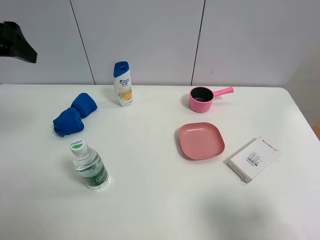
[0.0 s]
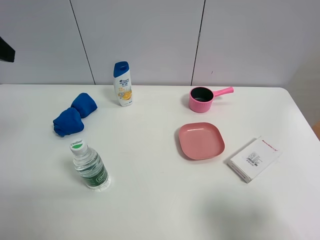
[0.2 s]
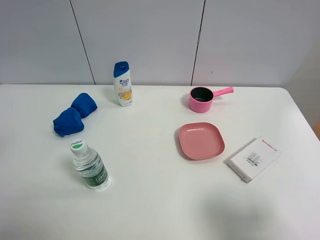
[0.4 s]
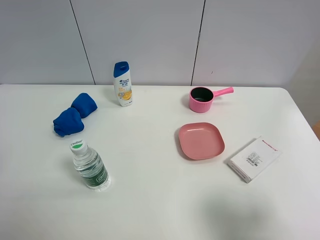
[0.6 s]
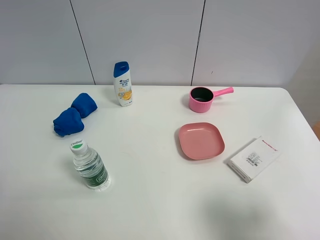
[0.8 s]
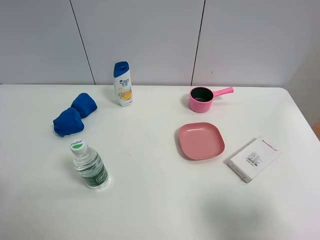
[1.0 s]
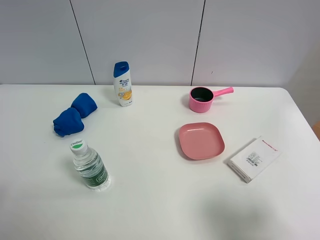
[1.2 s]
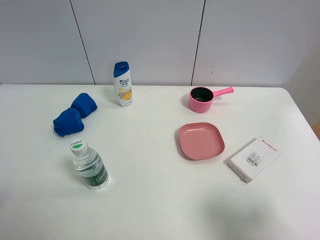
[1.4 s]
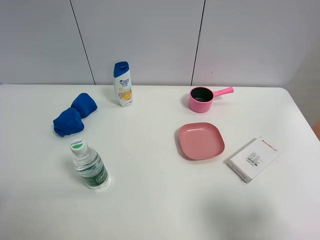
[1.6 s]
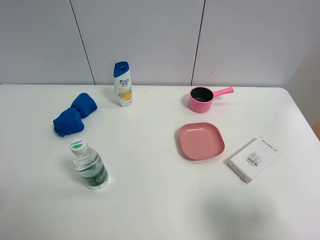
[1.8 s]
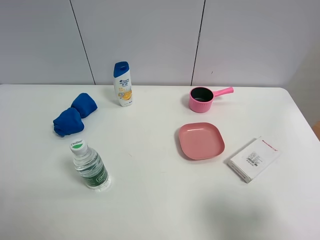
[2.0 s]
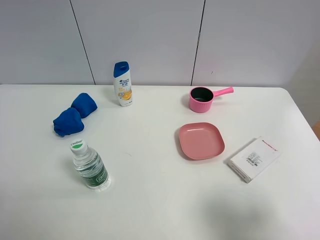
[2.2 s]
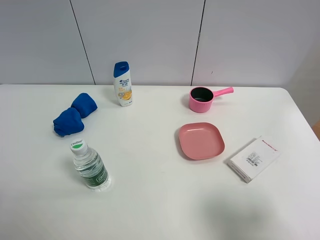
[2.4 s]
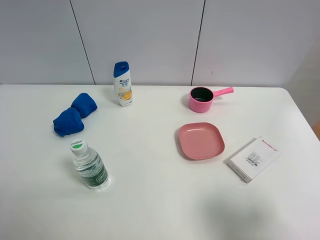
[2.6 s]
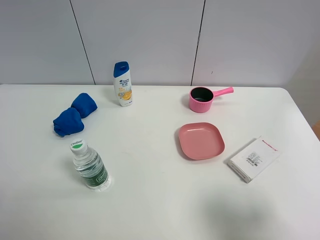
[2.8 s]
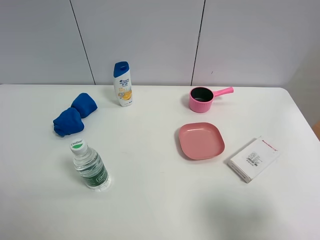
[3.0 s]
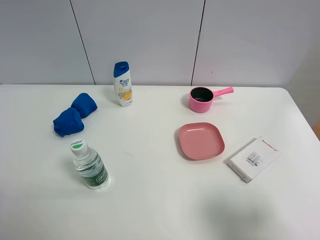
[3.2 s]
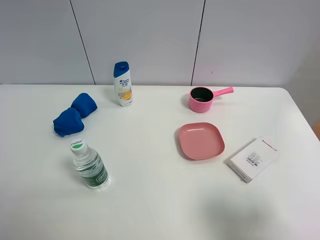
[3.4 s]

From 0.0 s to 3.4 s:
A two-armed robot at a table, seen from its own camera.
Task of the whole recording: the gripper move the object.
From 0.0 s to 1.6 s: The left gripper moves backward and downward, approximately 25 cm.

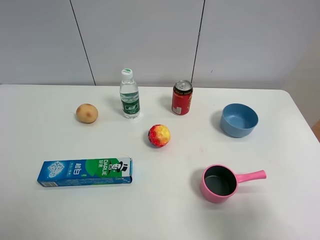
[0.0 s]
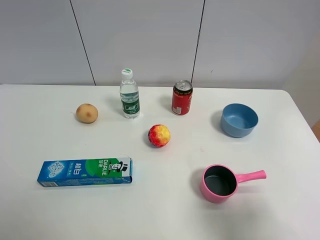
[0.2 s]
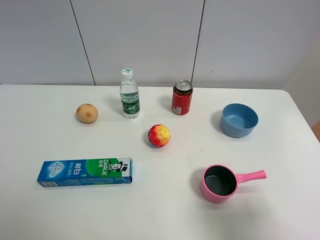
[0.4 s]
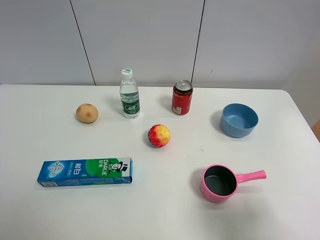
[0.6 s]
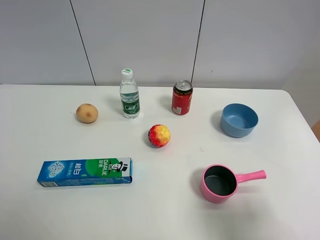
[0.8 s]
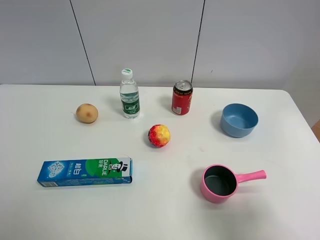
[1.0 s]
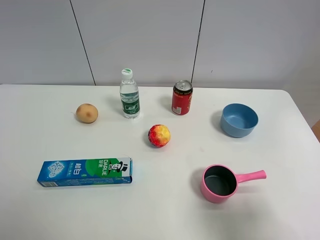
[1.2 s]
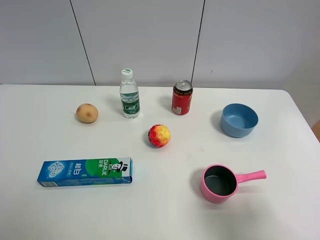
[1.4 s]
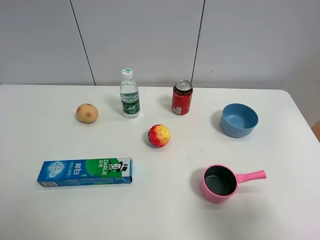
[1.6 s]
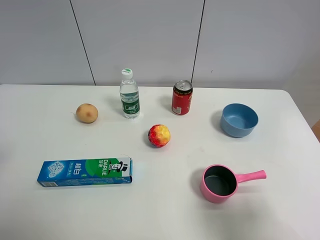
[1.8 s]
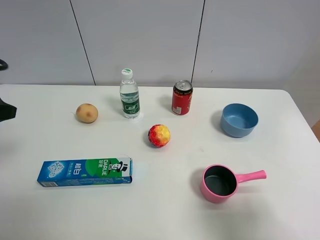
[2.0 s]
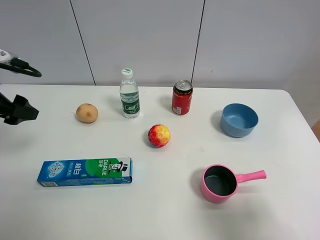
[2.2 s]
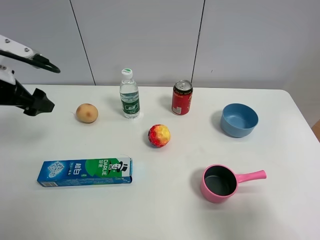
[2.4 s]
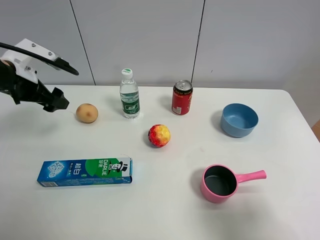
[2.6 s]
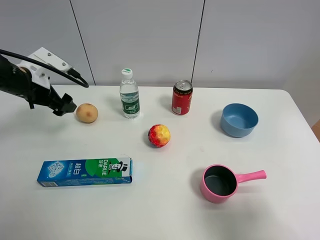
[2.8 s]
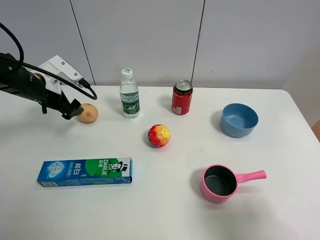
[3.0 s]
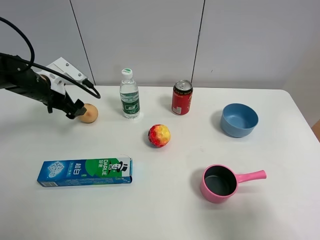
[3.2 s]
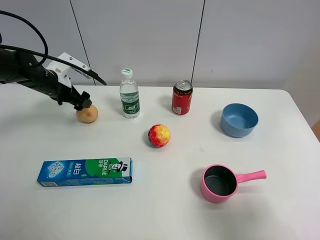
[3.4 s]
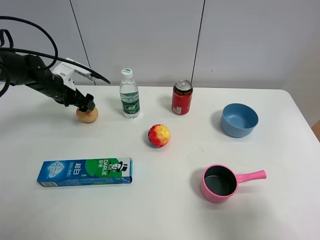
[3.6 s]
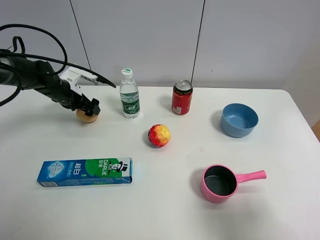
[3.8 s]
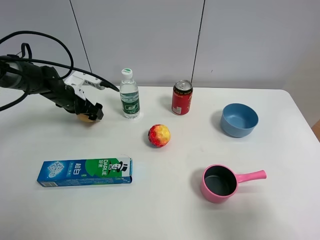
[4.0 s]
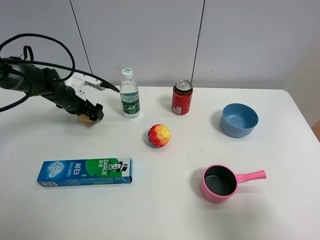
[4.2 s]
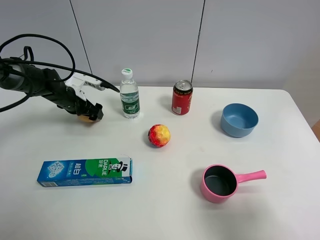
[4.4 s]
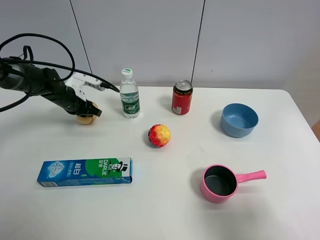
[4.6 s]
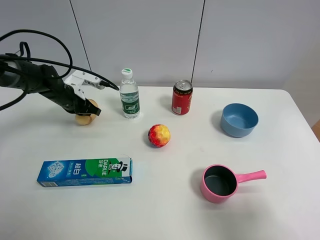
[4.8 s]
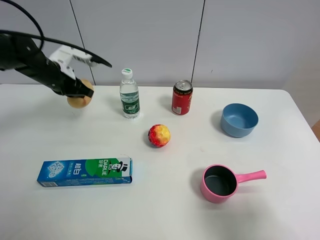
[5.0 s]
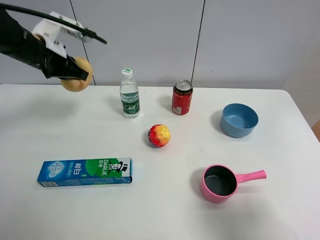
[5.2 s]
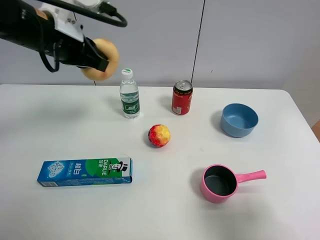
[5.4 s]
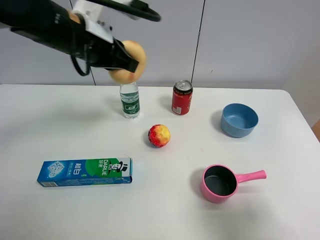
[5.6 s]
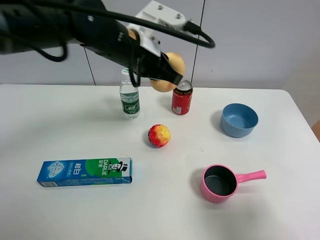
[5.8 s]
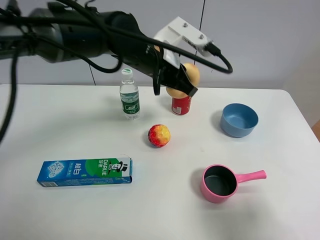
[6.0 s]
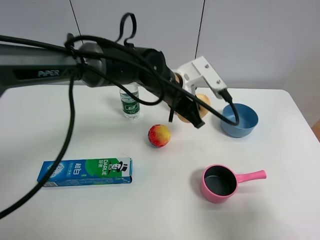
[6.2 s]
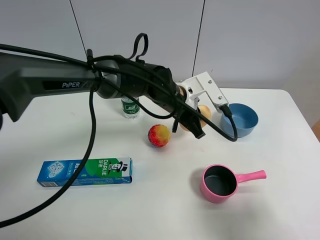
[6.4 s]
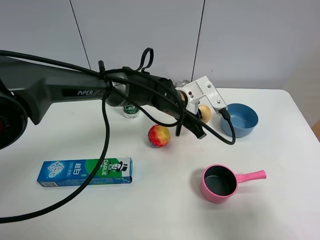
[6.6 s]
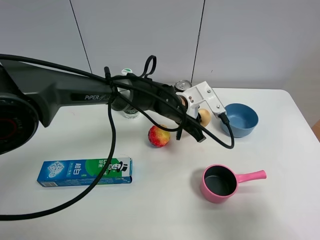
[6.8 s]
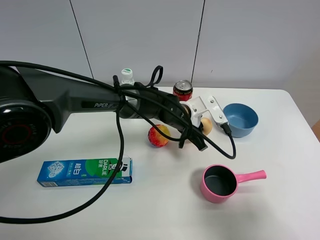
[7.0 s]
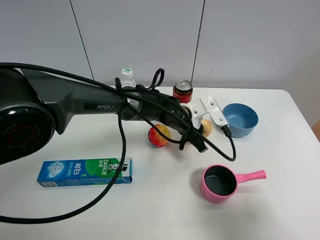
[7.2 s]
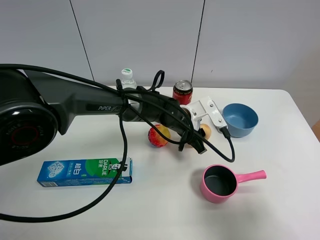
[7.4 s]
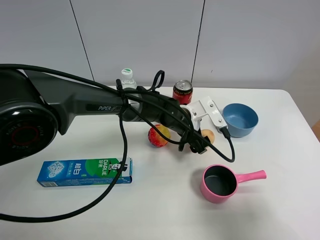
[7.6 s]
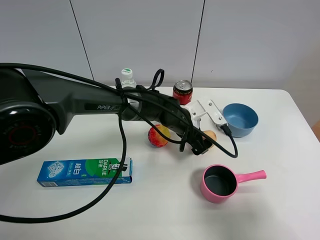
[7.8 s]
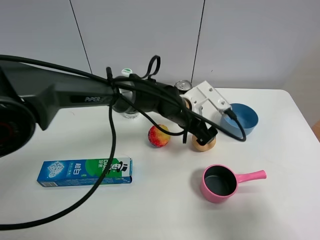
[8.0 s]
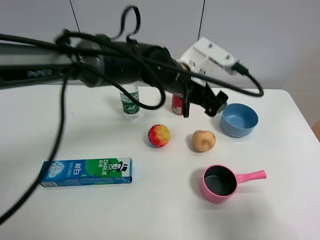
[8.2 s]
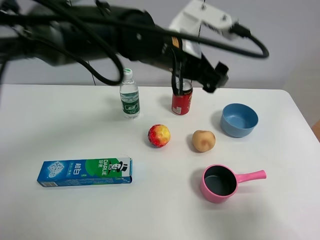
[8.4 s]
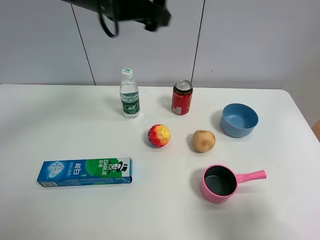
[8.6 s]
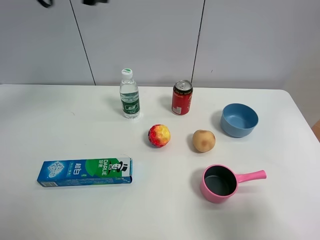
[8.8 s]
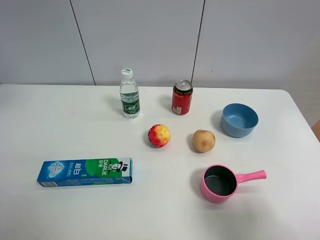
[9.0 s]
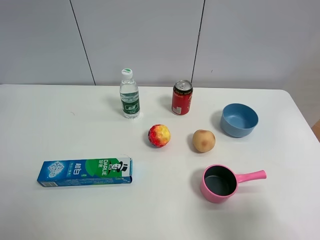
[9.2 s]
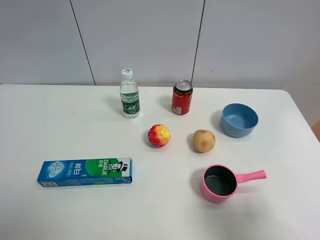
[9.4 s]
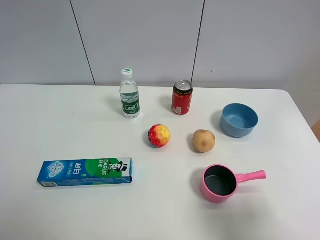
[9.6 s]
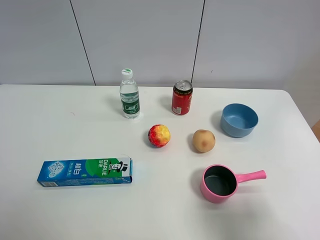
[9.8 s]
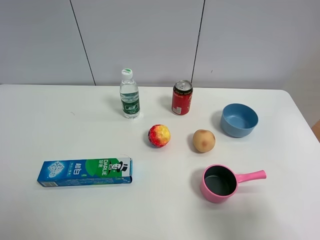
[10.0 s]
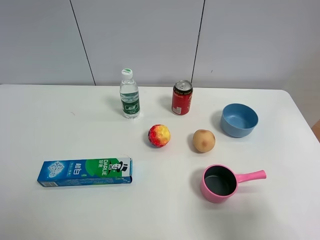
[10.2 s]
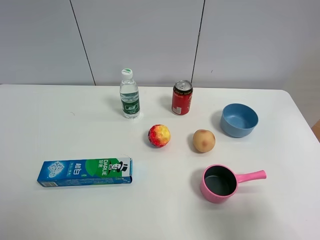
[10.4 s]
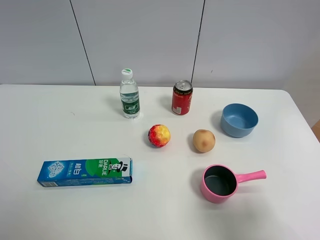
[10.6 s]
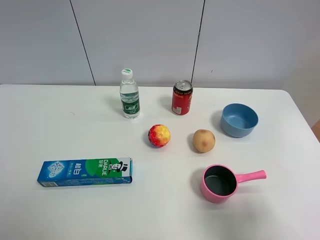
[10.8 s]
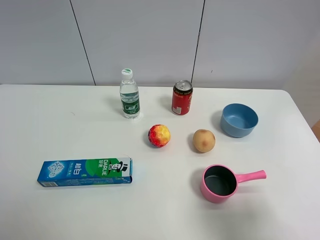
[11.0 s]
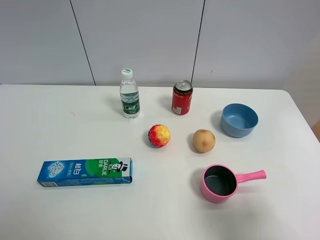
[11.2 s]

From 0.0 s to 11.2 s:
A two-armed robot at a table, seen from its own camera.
Task of the whole recording: the gripper move the object.
Step, from 0.0 s to 4.6 s: Grasp the egg yolk pastry with the left gripper.
Step, from 4.8 s to 7.6 s: Place the egg yolk pastry on the table with the left gripper.
From 1.6 s to 3.2 s: The left gripper shifts some 35 cm forward and downward.
From 3.2 s to 4.8 s: The left gripper travels downward by some 5 cm, and closes up.
From 4.8 s to 6.4 s: The left gripper shifts roughly 30 cm to the right.
From 6.4 s to 8.0 s: The left gripper opens up.
From 8.0 s to 9.6 s: The left gripper goes some 50 cm to the left, upward and backward.

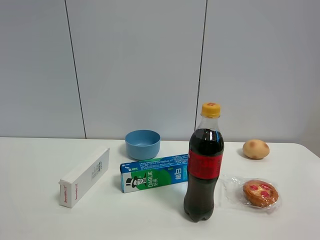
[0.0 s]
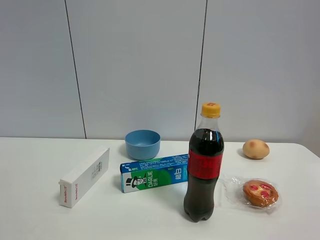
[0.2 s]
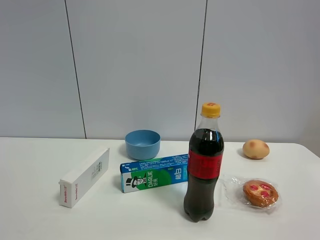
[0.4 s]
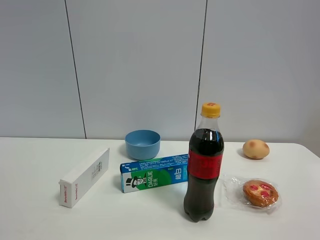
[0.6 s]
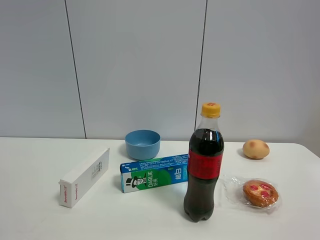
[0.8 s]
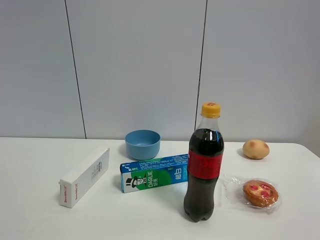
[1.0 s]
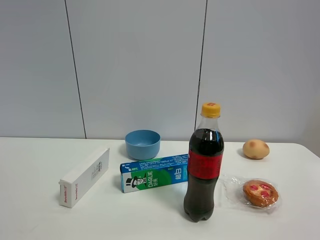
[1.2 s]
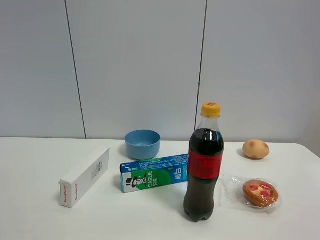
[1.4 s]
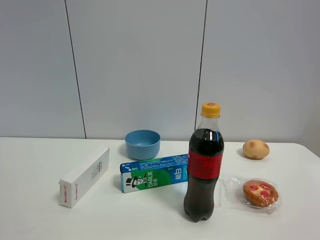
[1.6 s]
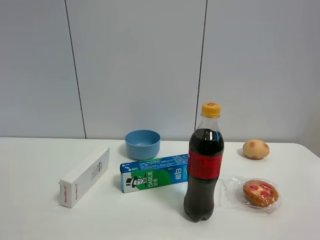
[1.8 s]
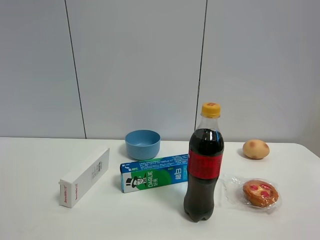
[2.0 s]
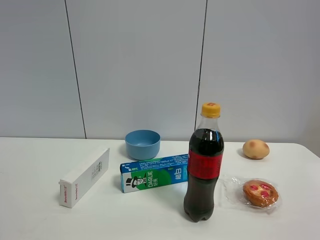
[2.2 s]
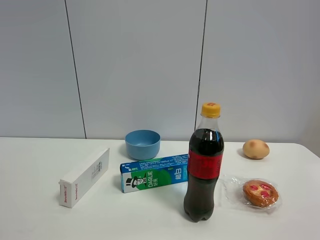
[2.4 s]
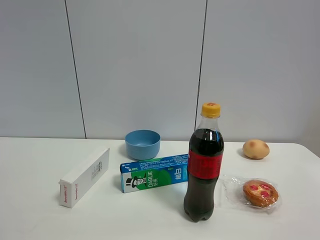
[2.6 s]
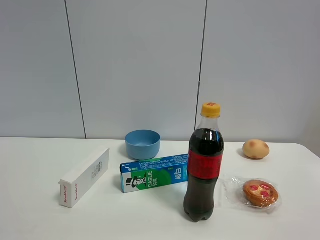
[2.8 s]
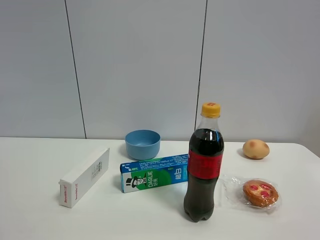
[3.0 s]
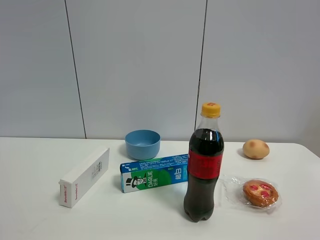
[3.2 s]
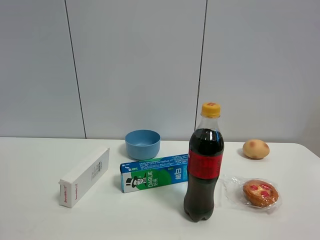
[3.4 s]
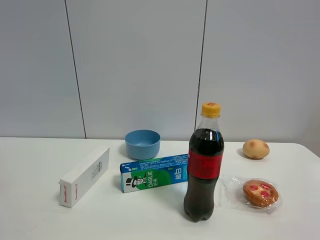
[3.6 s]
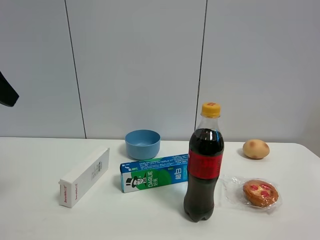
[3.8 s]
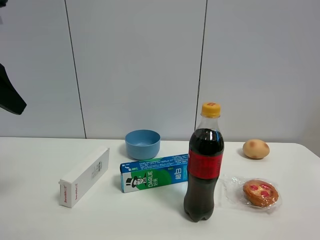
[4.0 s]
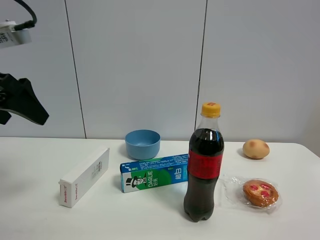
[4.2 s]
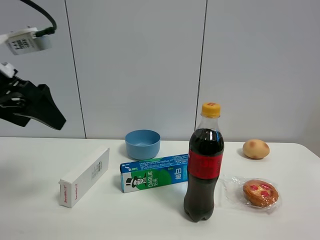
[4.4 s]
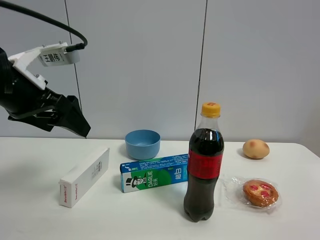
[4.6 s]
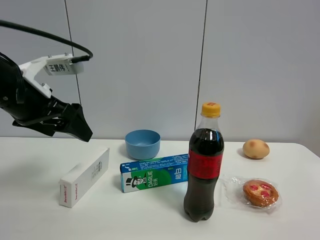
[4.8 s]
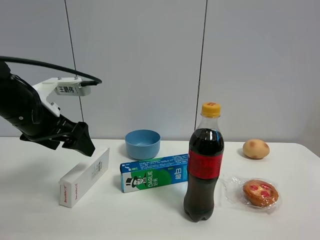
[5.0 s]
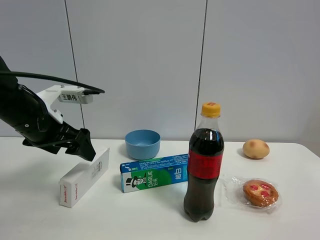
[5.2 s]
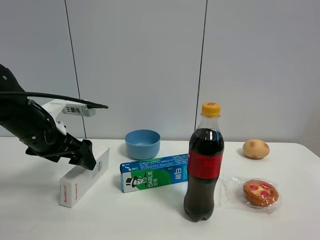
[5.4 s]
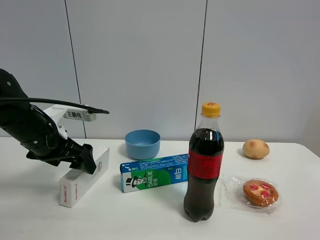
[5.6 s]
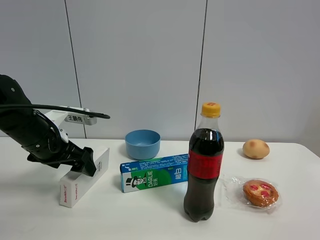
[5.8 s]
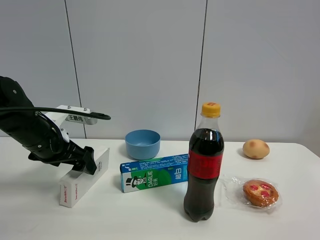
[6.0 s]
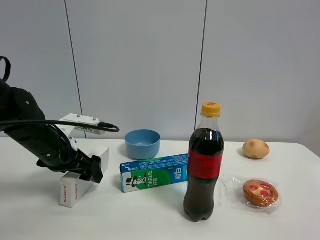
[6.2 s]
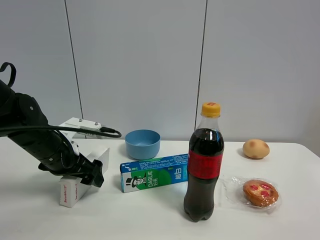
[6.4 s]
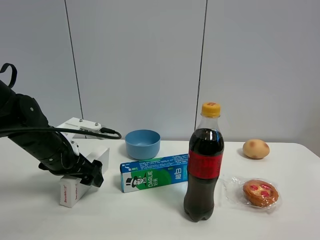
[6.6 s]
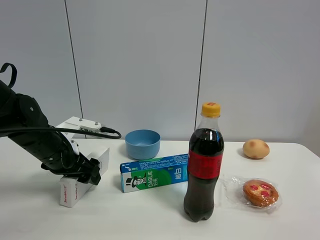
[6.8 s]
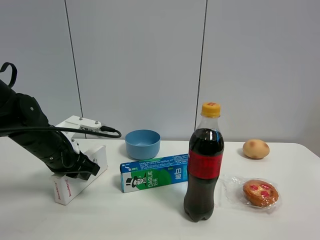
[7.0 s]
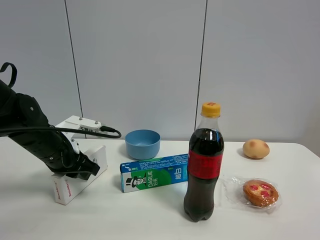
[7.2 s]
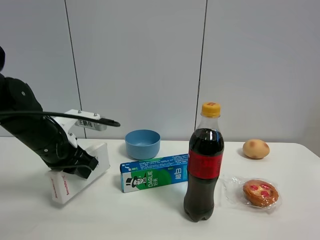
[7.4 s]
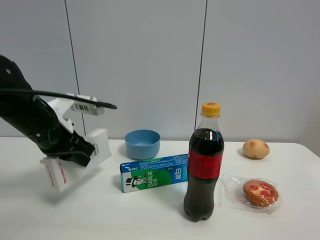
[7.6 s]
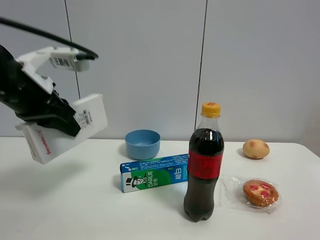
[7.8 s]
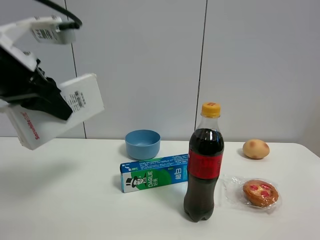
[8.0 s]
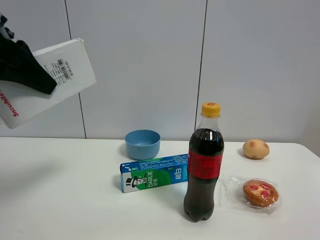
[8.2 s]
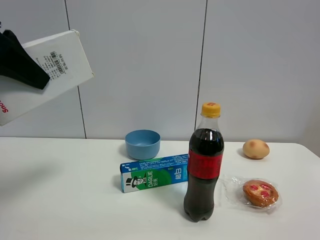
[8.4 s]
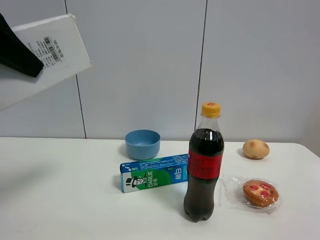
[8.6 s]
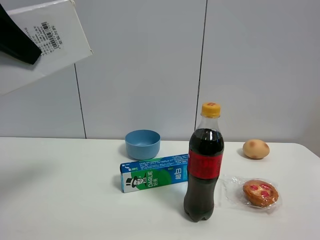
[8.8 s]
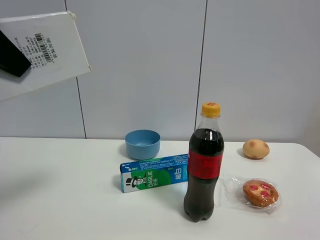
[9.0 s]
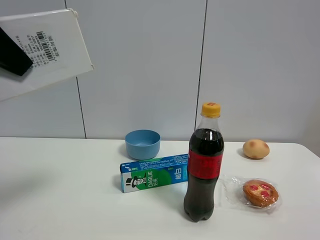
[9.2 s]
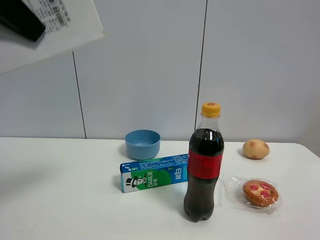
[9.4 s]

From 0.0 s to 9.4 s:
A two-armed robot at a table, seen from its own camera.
Task of the whole recording: the gripper move the object.
Step, from 0.0 s to 7.0 s: Grasp the USB box with the left gripper.
From 0.0 s to 1.6 s: Both grippers stay about where they are.
From 3.2 s to 4.8 s: The left gripper travels forward and downward by some 25 cm.
From 4.8 s to 6.2 s: The left gripper moves downward, approximately 10 cm.
From 6.2 s to 7.8 s: The left gripper shifts some 15 cm upward and backward, and closes up.
From 7.8 s to 9.4 s: The left gripper heads upward and backward, covering roughly 20 cm.
